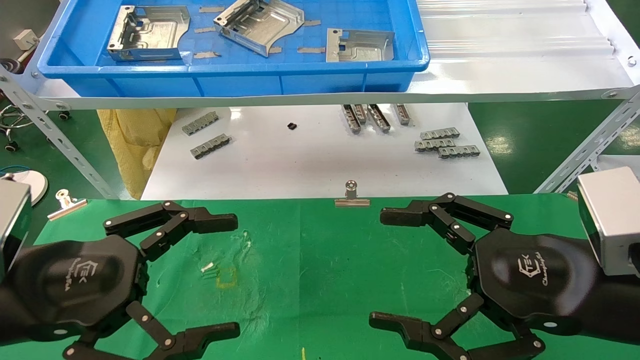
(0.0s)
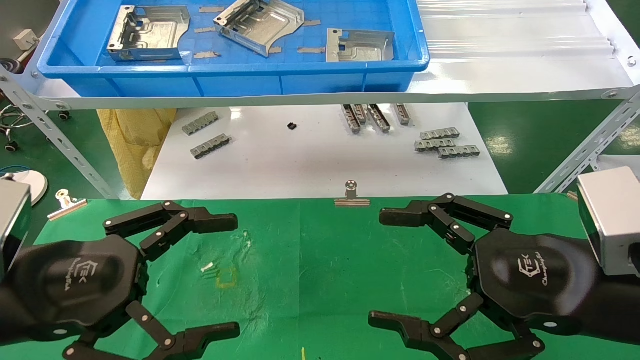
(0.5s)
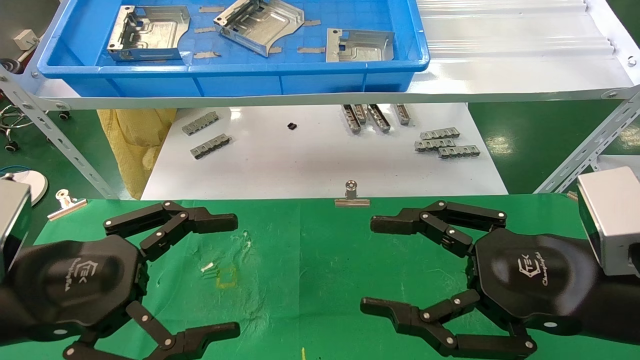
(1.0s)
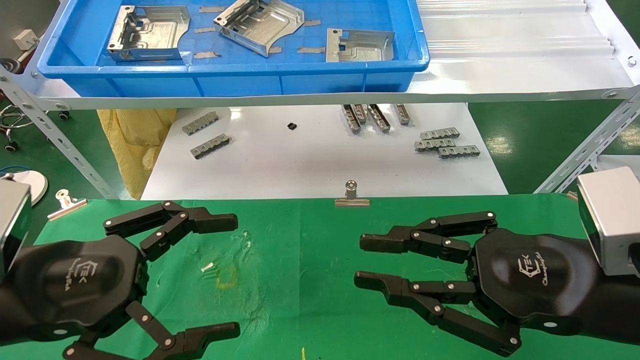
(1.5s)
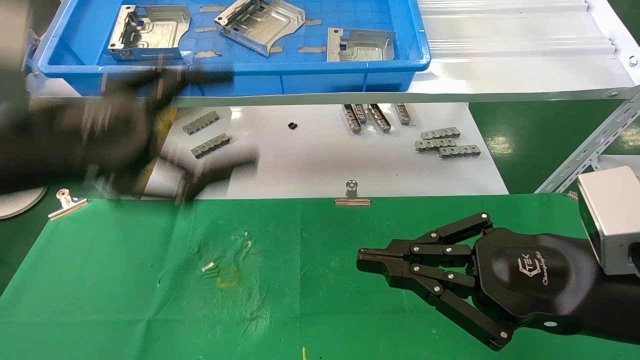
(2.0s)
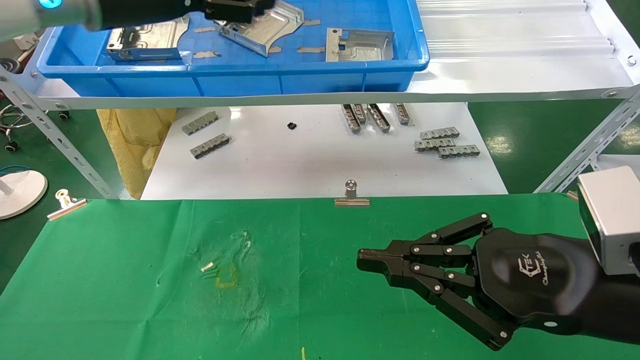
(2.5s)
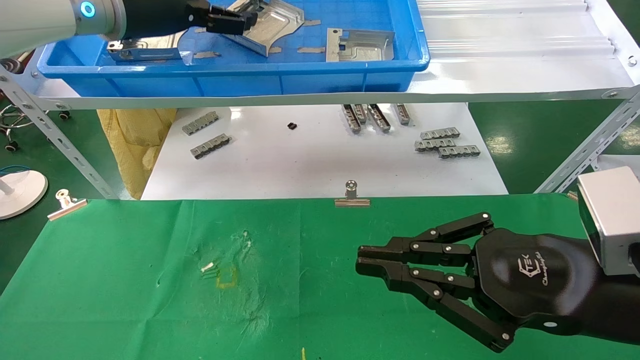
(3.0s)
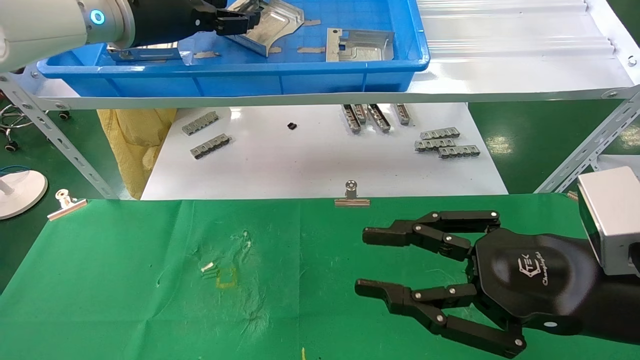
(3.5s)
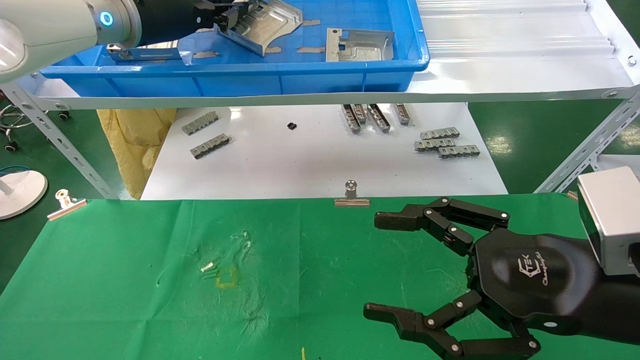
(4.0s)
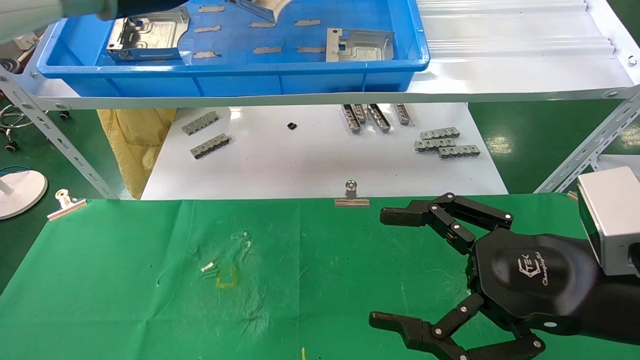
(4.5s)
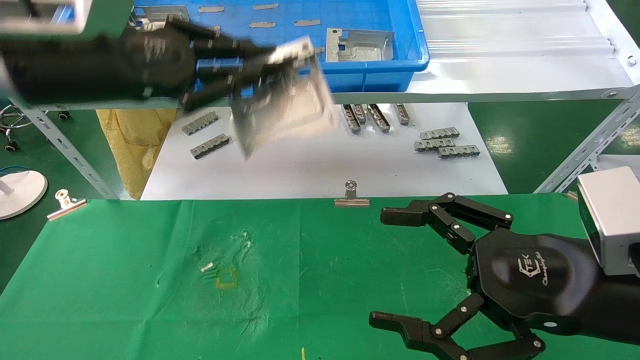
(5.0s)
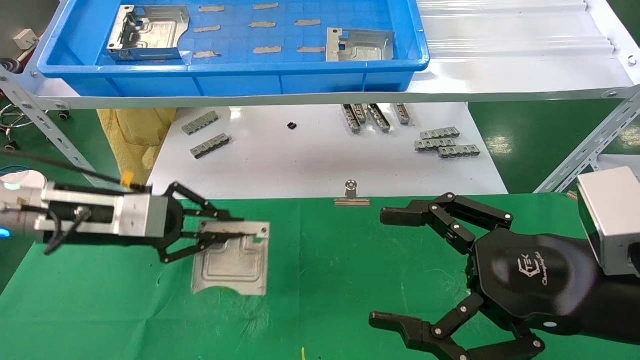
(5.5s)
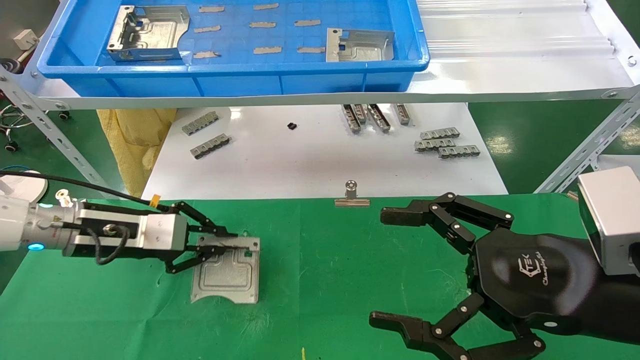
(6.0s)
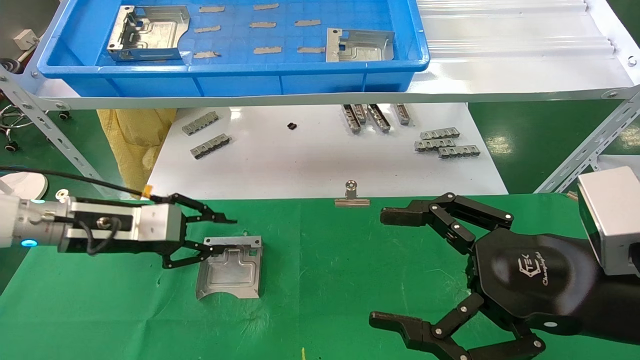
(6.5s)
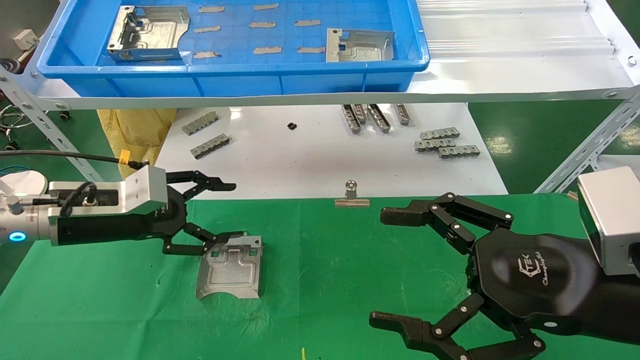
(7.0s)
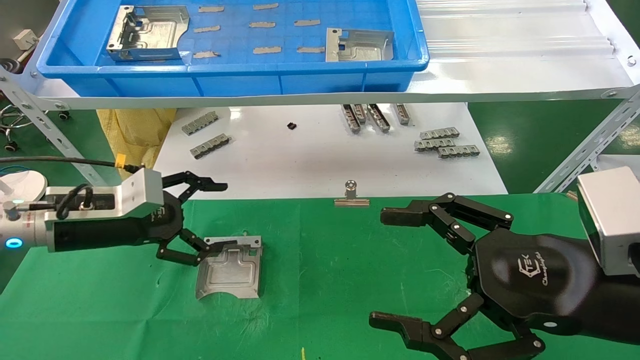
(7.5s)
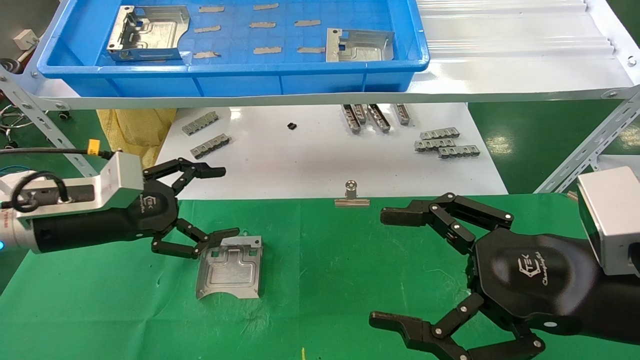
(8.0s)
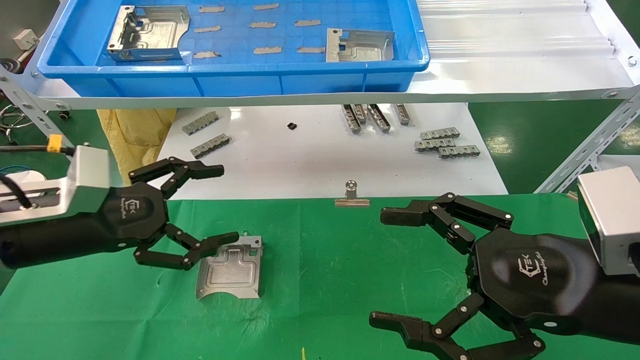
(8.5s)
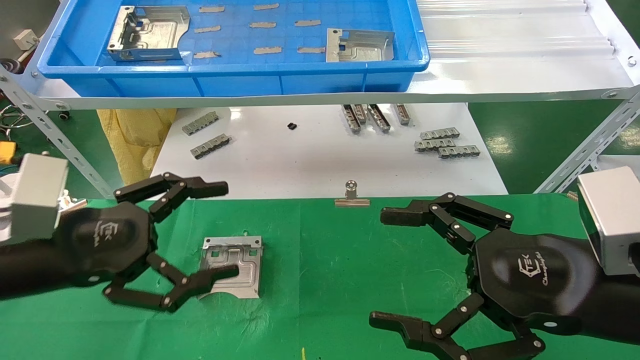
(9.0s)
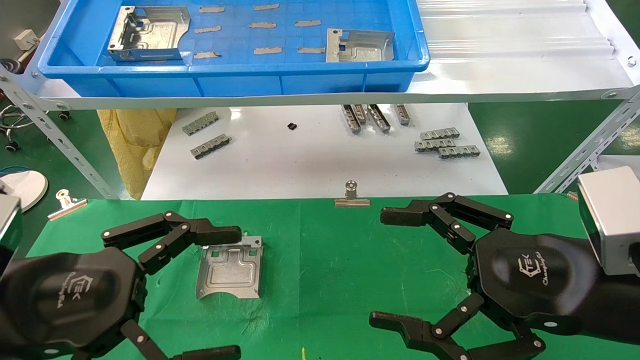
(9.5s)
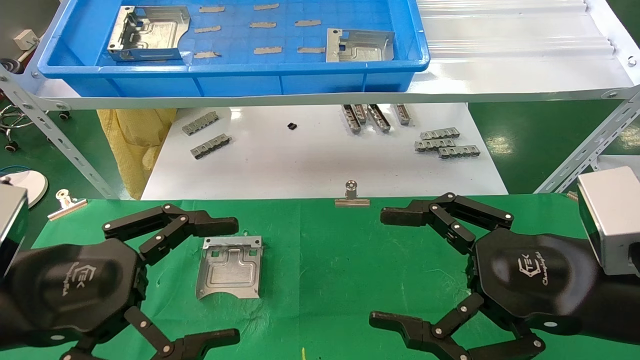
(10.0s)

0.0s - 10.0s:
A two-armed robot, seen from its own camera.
Task of the whole recording: use the mechanical arm to pick up the parts and place them on the table.
Step, 2.5s - 4.0s: Pick up the hard drive bracket from the feeding area.
Step, 4.5s - 6.0s: Place the hard drive bracket into the box.
0.0s - 2.0s: The right gripper closes; the left gripper is displaced upward and forward by roughly 10 cm.
2.0s - 4.0s: The right gripper opens up. Meanwhile the left gripper heads forward and upward, covering approximately 20 cm, and closes.
4.0s - 6.0s: The left gripper travels downward by approximately 25 cm.
6.0s - 8.0s: The left gripper opens.
8.0s - 10.0s: The left gripper heads backward, covering roughly 15 cm.

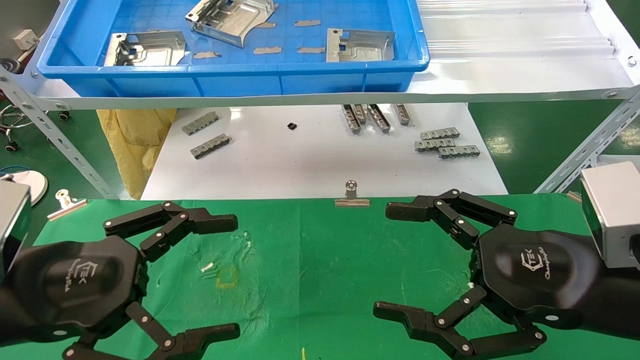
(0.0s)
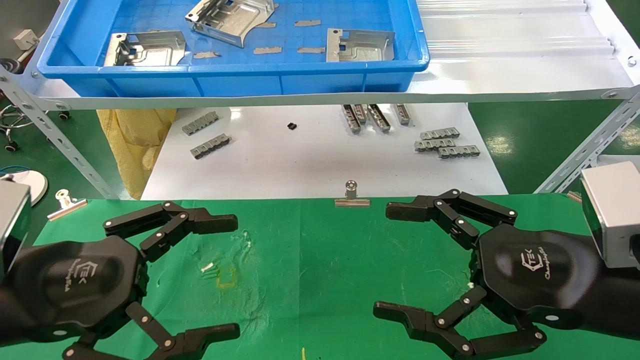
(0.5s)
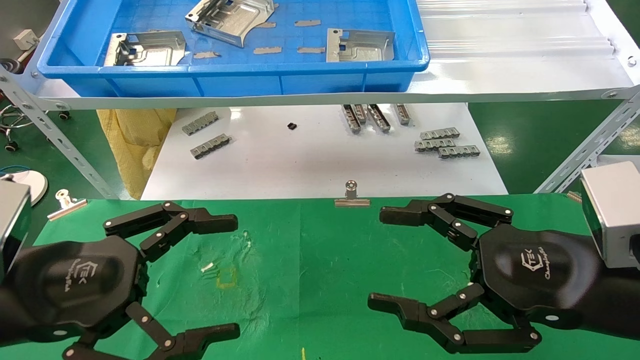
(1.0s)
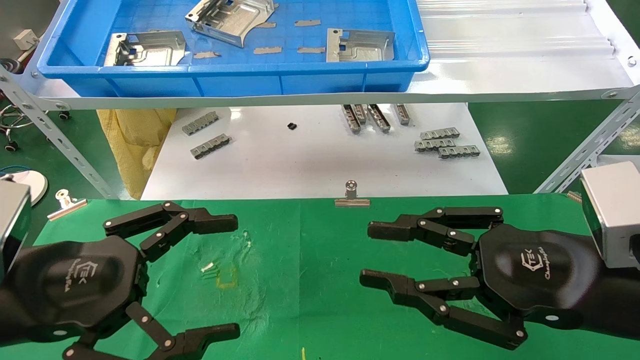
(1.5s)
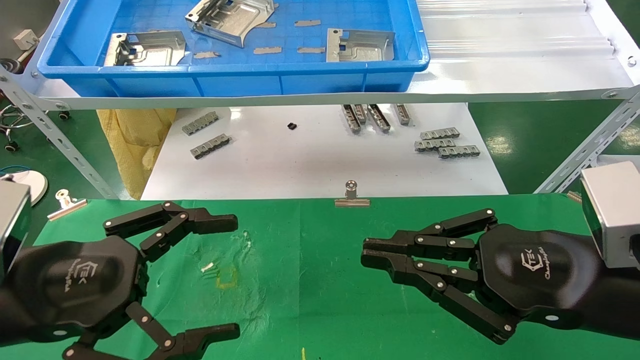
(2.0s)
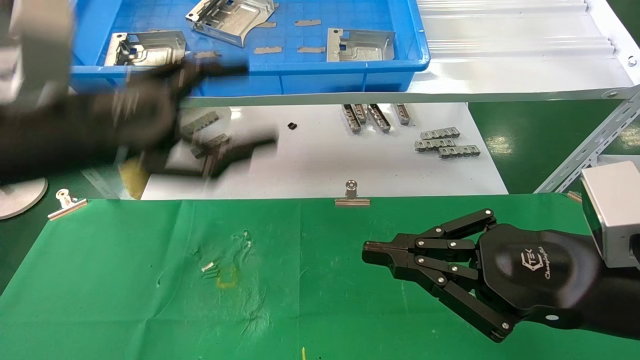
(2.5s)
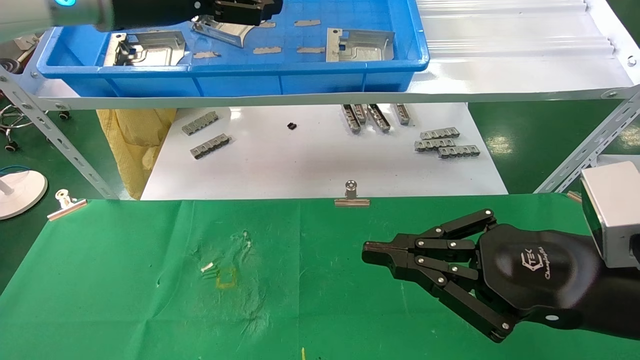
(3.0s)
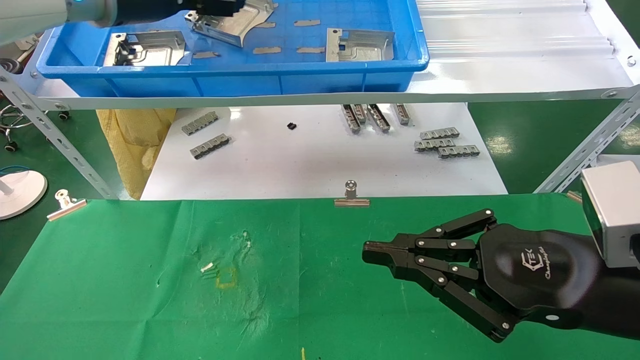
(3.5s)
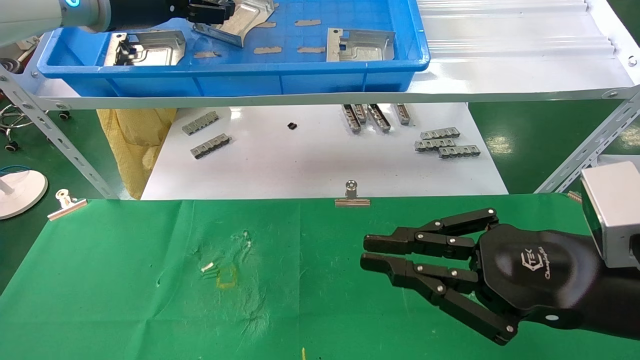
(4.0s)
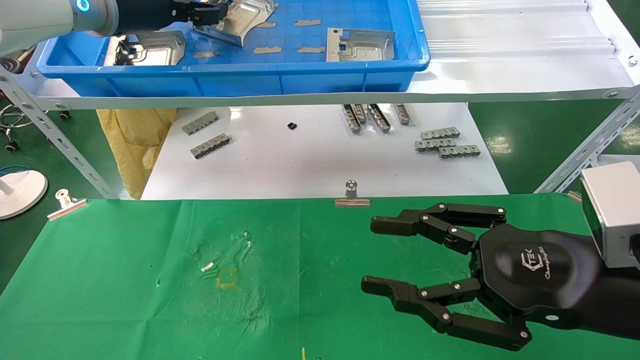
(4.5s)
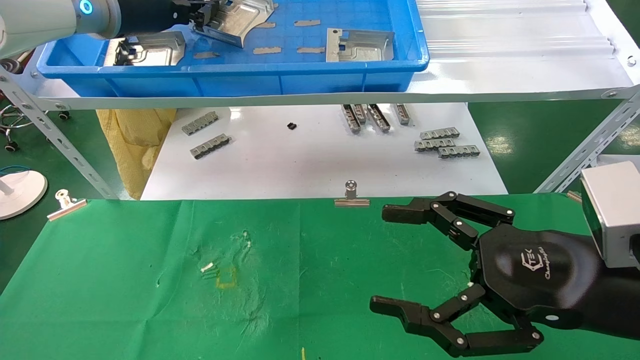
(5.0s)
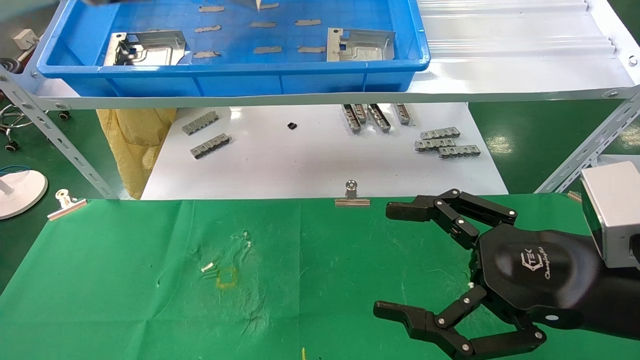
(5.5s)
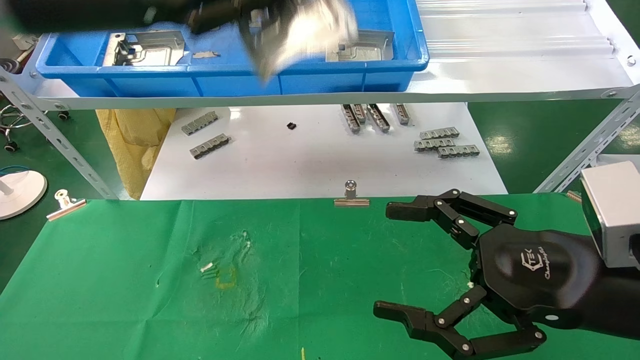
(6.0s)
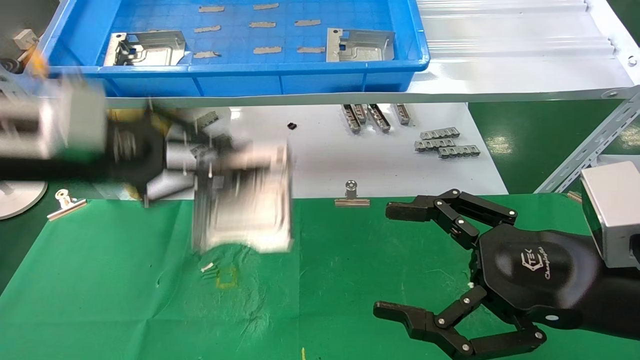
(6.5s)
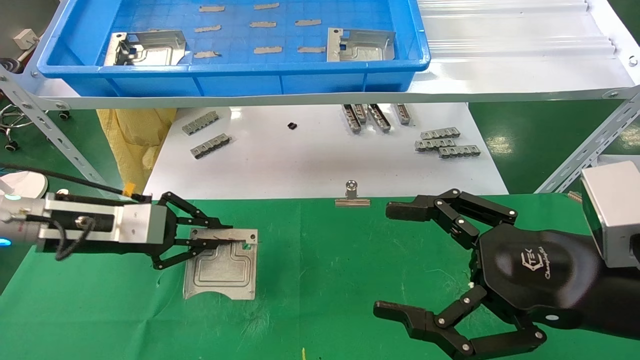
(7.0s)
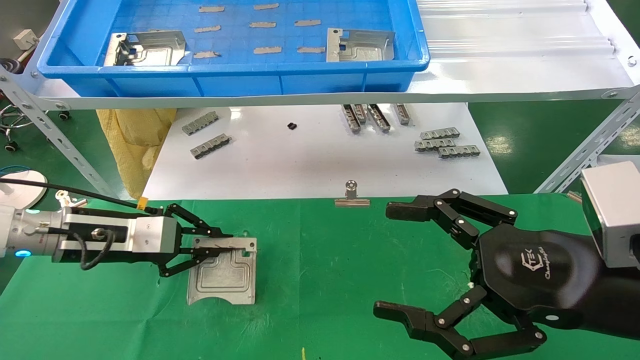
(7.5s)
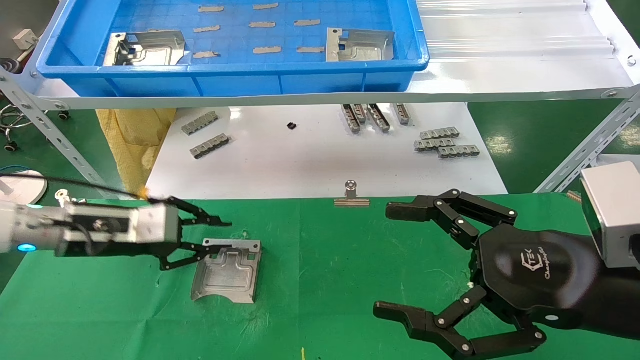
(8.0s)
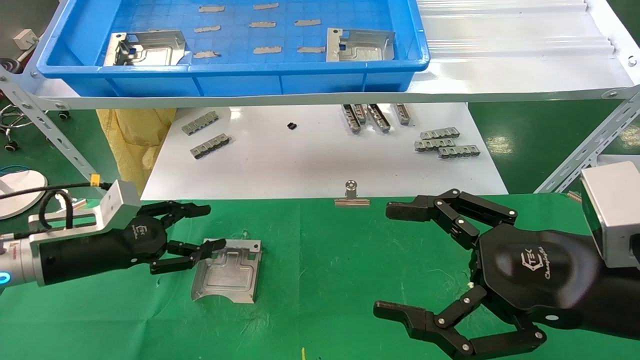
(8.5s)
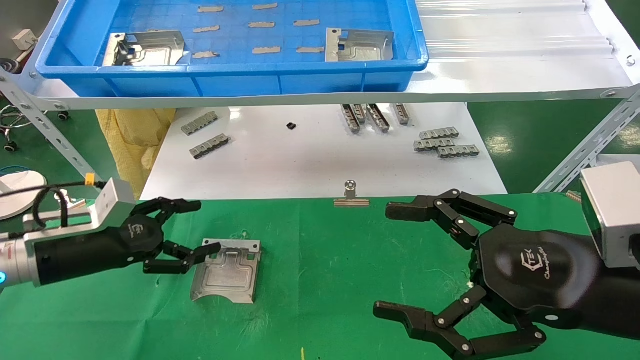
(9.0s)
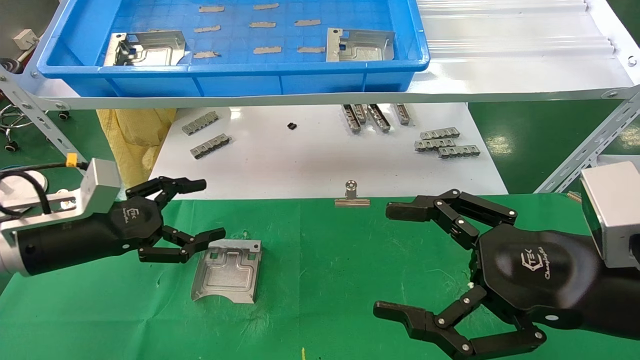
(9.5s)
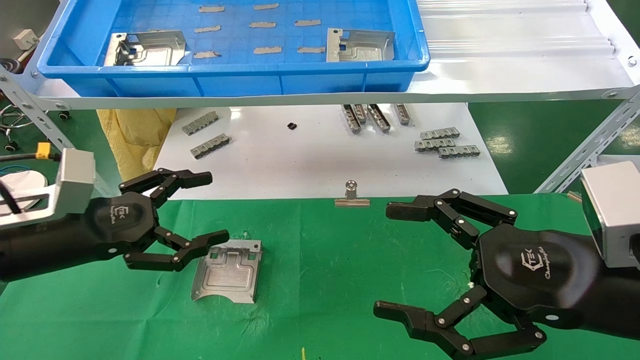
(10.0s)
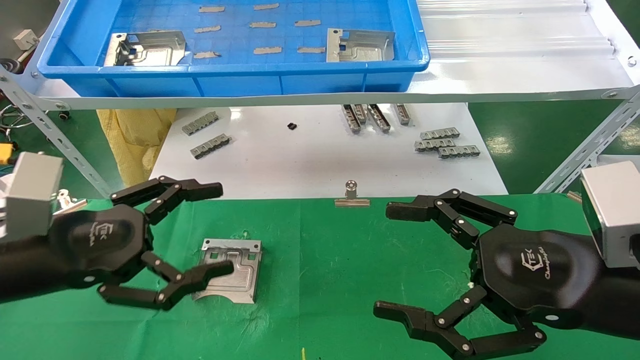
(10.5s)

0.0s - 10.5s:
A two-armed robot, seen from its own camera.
Task of the whole recording: use the mechanical arm to pick up the parts and place them on the table.
Step, 3.0s - 5.0s: Pick up the hard drive bracket from the feeding area.
Step, 5.5s - 8.0s: Place the hard drive bracket into the box.
0.0s - 2.0s: The right gripper closes.
2.0s - 4.0s: The left gripper goes roughly 35 cm upward and forward.
4.0s - 6.5s: The right gripper opens its fingers; the left gripper is displaced downward and backward by about 20 cm, and closes up.
6.5s - 8.5s: The left gripper is displaced downward by some 15 cm, and opens its fingers.
8.5s - 10.5s: The left gripper moves backward and upward, about 15 cm, and opens its fingers.
